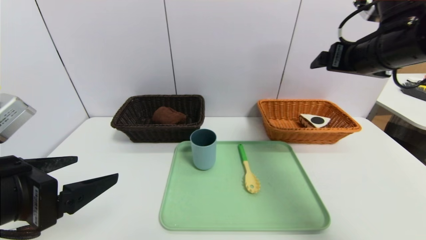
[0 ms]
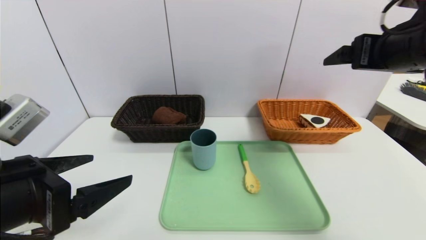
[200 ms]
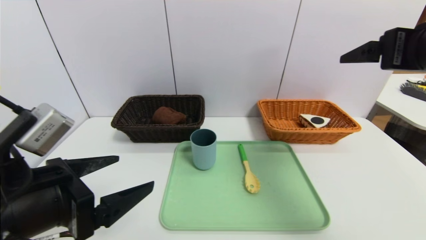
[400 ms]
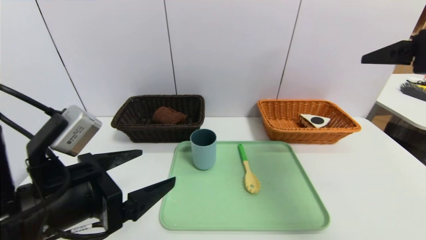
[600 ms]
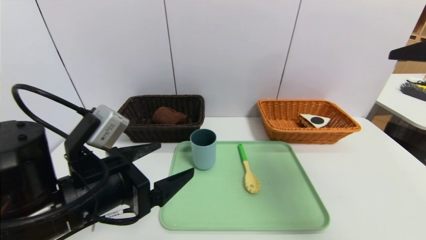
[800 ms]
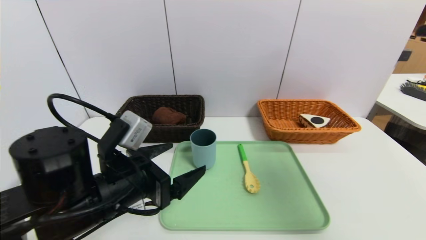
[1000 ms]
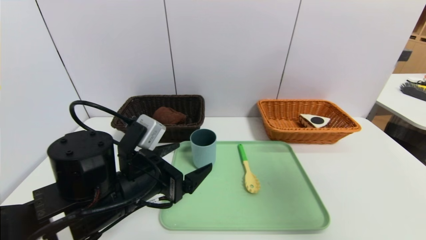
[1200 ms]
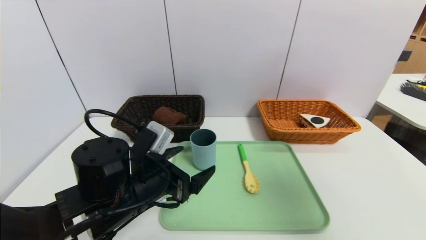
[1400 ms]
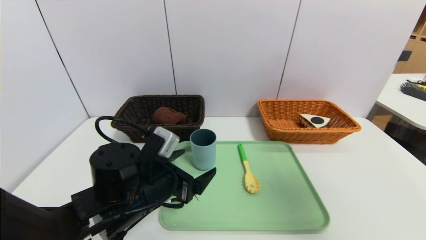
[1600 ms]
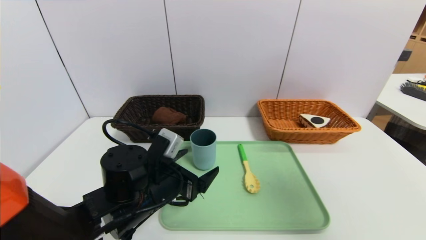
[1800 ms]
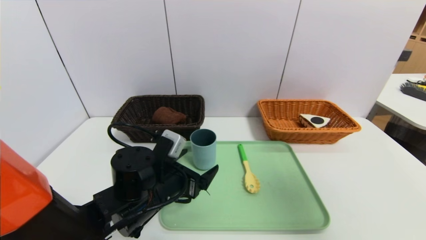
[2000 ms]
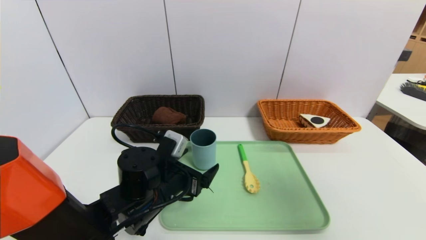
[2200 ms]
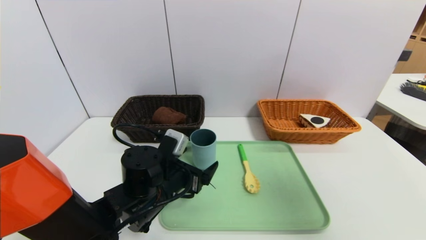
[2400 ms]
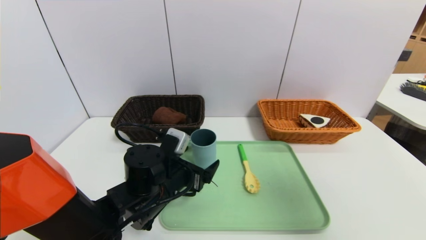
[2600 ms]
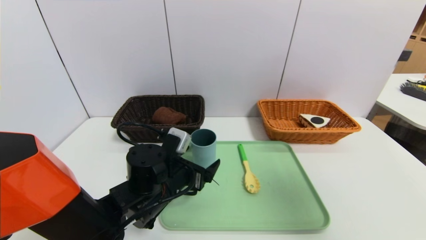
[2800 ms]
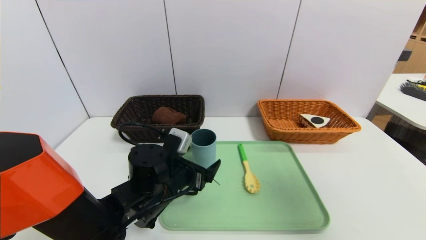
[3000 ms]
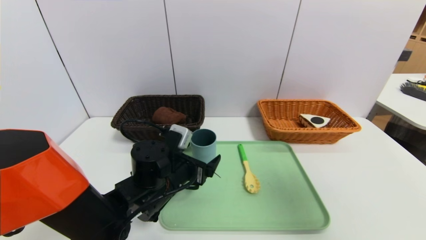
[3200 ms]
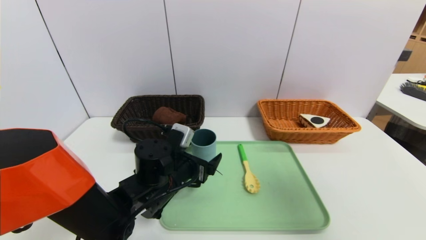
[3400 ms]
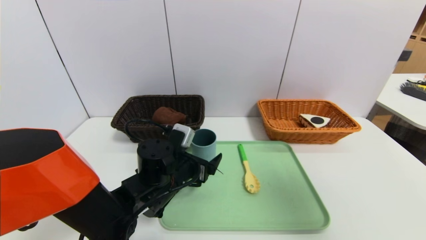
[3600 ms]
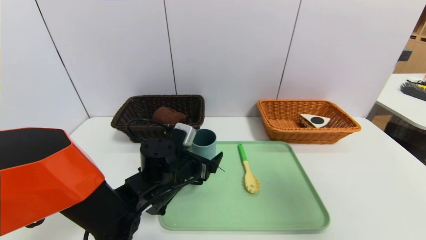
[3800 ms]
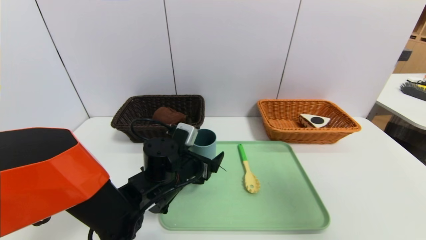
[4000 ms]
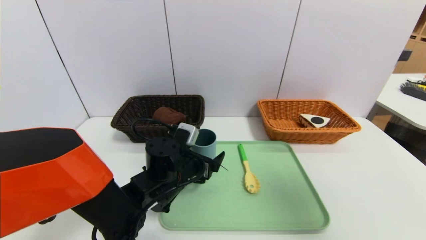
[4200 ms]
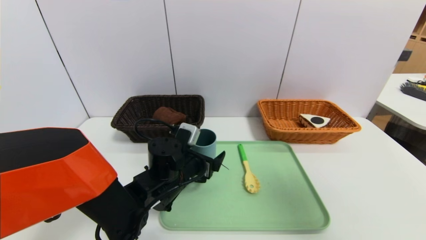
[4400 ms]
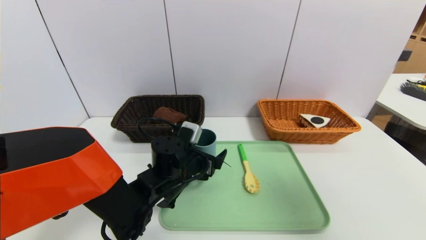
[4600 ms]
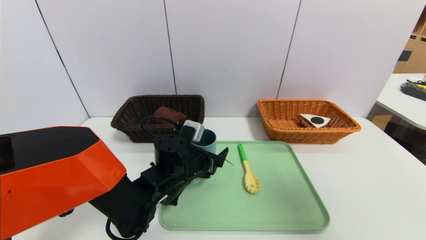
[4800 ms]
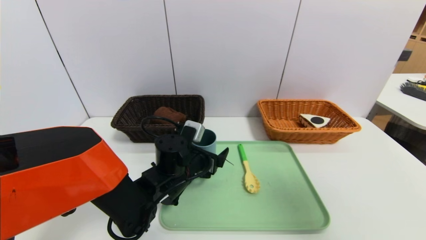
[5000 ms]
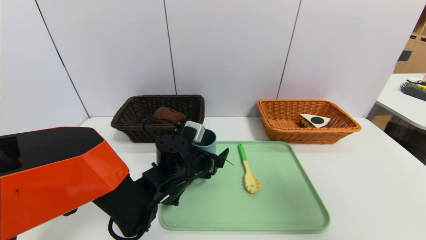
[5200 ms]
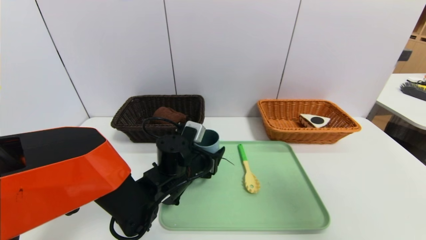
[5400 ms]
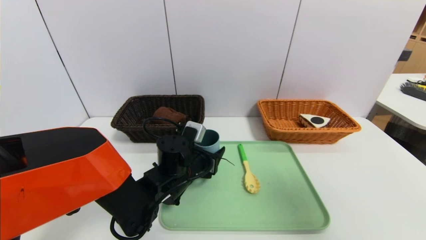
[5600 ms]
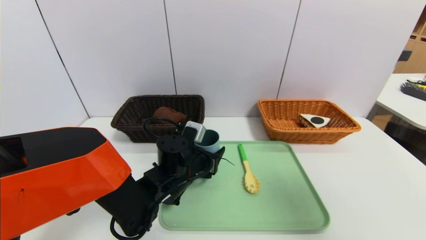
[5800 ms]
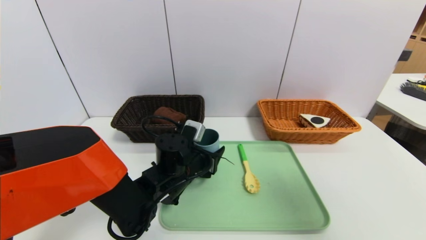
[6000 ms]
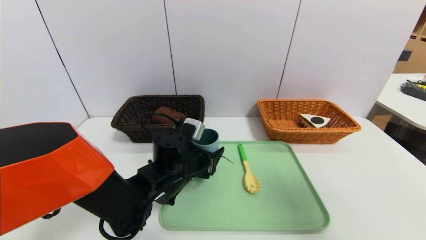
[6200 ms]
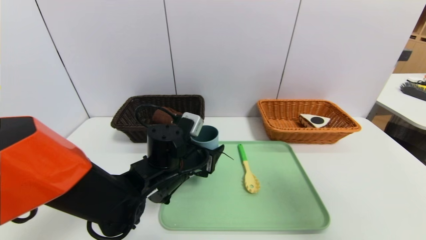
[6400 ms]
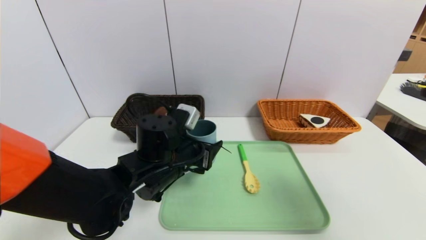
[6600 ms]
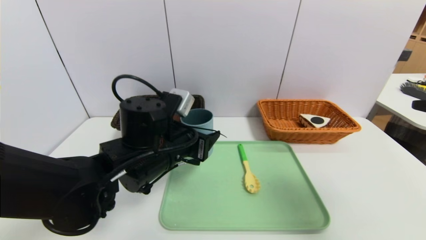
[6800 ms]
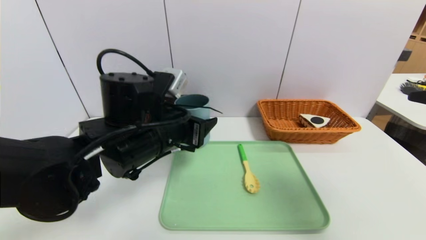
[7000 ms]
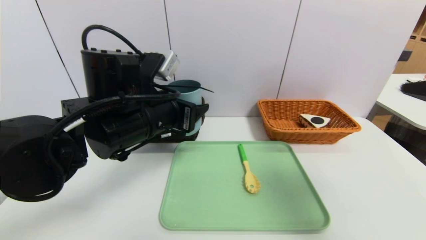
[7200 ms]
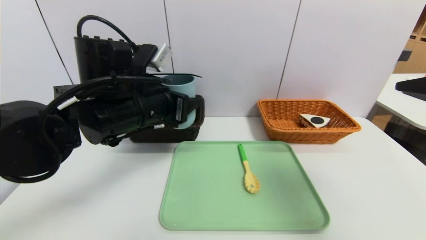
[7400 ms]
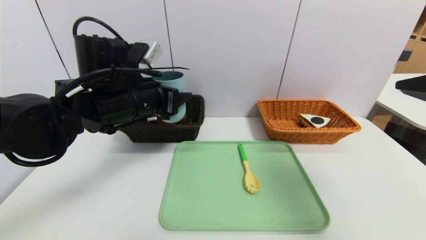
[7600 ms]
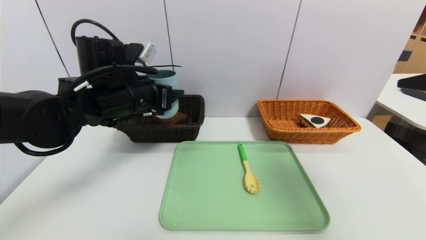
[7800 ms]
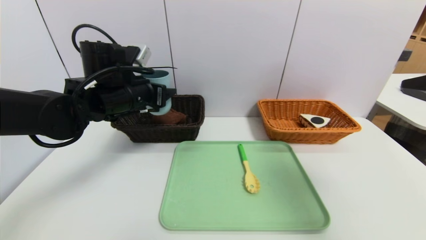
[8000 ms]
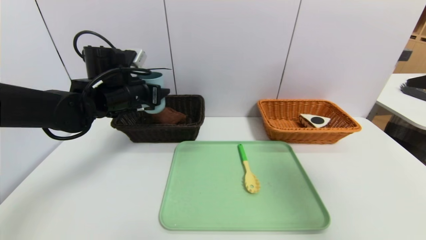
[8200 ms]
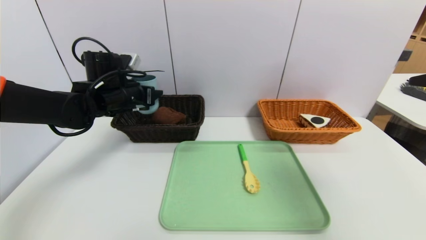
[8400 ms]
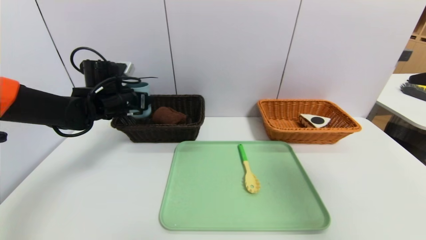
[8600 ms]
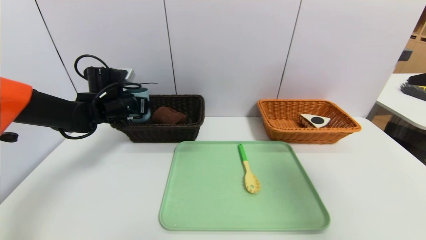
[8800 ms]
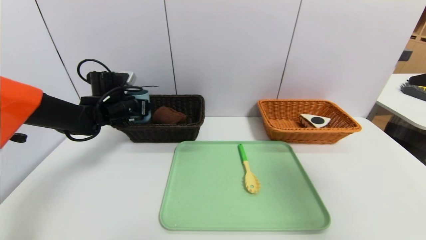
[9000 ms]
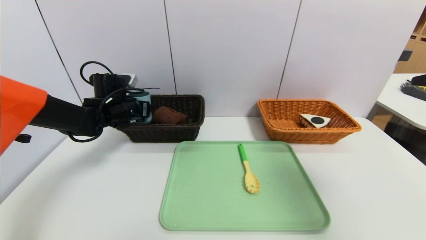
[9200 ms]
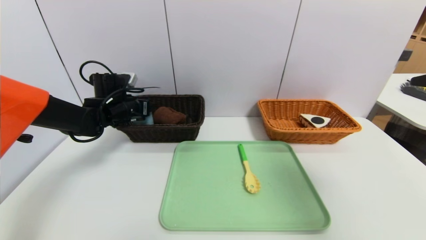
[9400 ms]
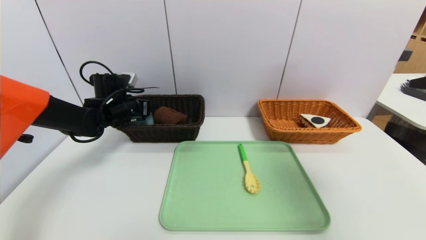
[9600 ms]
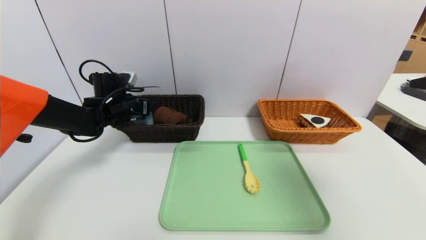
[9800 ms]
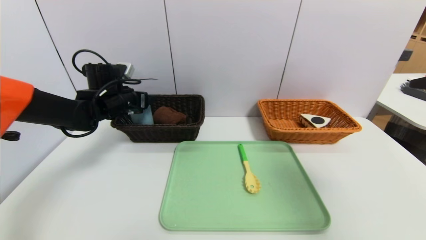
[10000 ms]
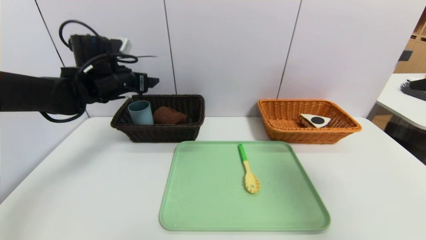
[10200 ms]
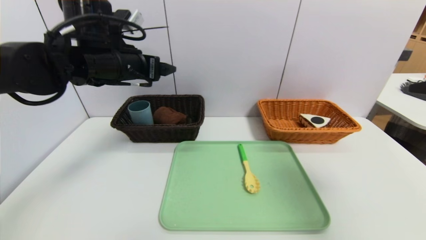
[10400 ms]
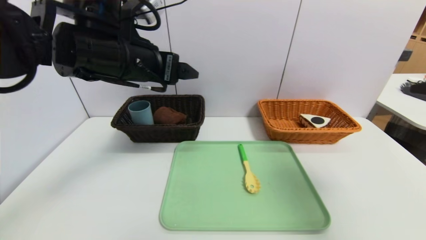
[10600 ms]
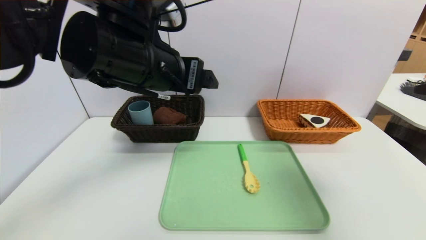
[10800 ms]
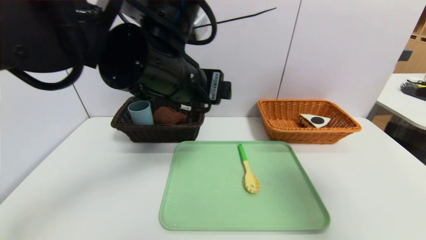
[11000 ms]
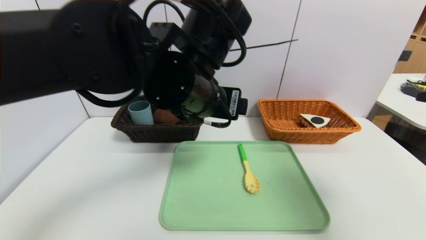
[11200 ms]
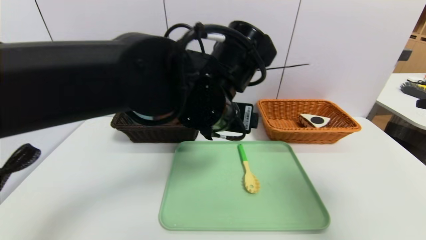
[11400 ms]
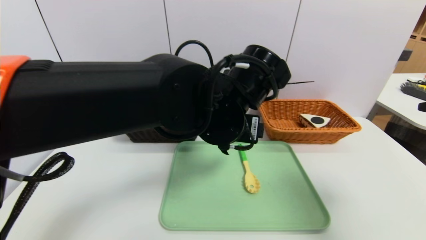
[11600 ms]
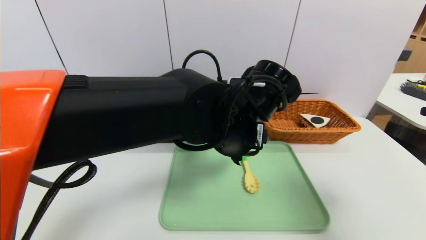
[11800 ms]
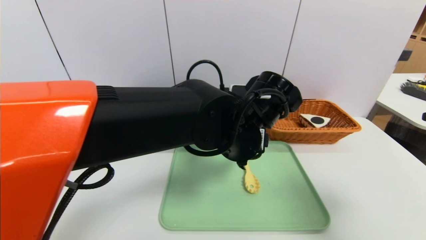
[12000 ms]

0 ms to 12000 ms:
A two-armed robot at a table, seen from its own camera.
Task of the whole recording: place the food in the right basket with the right gripper, and place the non food items in the left basket with the left gripper.
Step, 0 ms to 9800 ms: Grasp the blue cup and put it in the left basket.
0 ms to 1600 ms: The left gripper travels downward, to the right and forward by approximately 20 cm, while the right gripper goes about 20 cm backward.
1600 ms to 3000 ms: There are only small adjustments of the grippers.
3000 ms to 6000 ms: There are only small adjustments of the grippers.
6000 ms to 7600 ms: The right gripper moves forward, approximately 5 cm, while the left gripper travels upward and to the left by about 20 cm.
7600 ms to 9000 ms: The left gripper travels forward, to the left and downward by some 20 cm.
9000 ms to 10400 ms: The left gripper heads upward, backward and to the right, covering roughly 20 cm.
10400 ms to 12000 ms: The left gripper is displaced to the right and downward by about 25 cm.

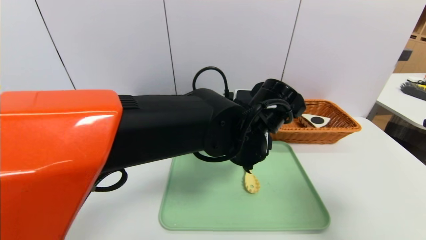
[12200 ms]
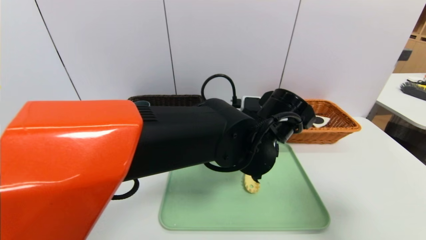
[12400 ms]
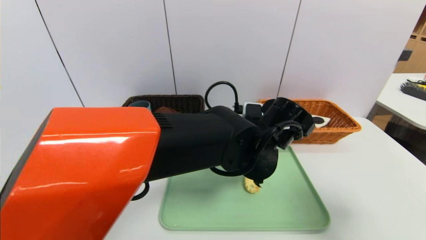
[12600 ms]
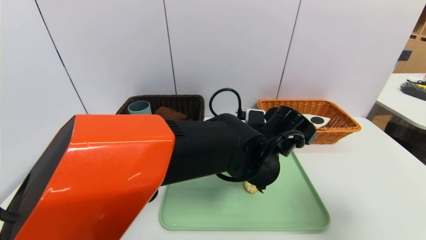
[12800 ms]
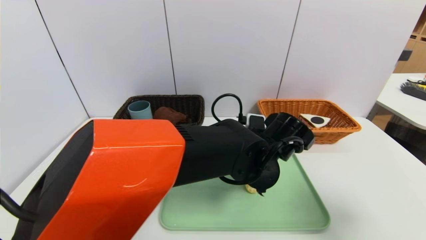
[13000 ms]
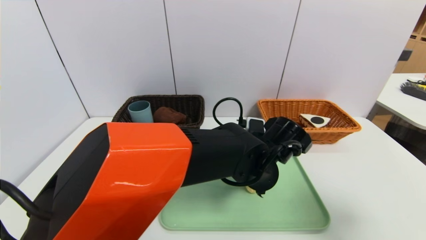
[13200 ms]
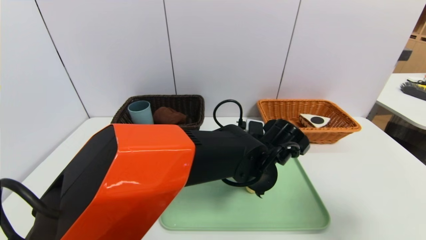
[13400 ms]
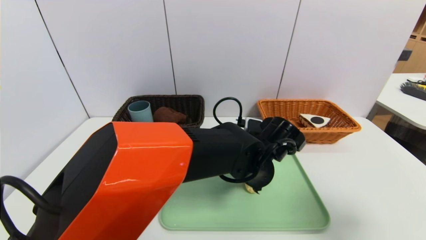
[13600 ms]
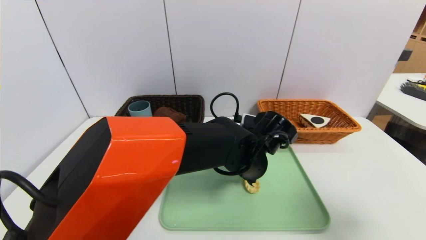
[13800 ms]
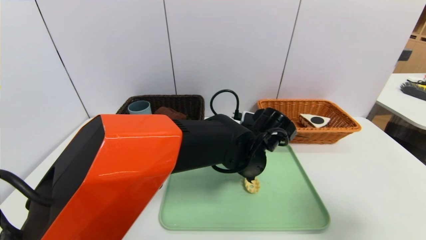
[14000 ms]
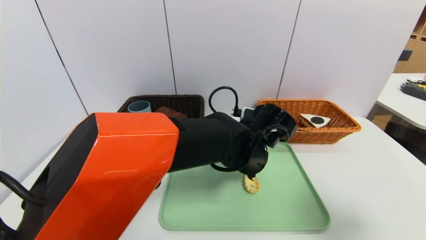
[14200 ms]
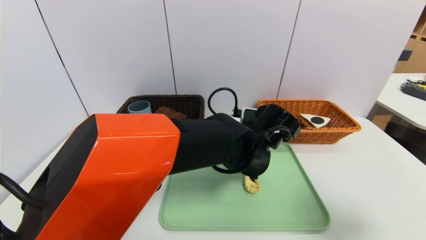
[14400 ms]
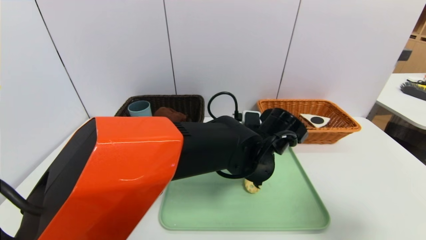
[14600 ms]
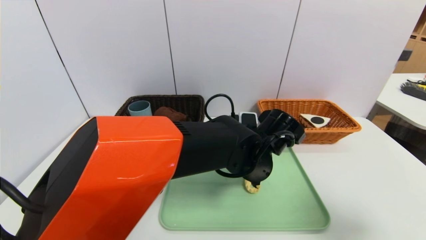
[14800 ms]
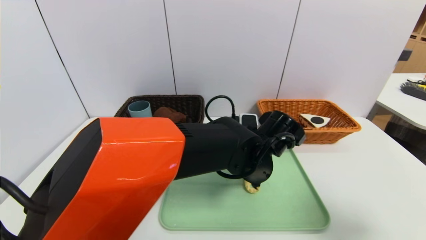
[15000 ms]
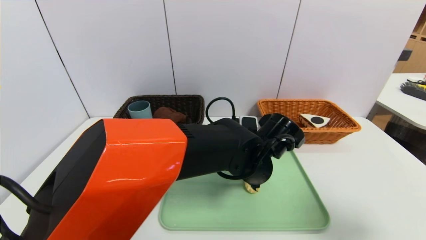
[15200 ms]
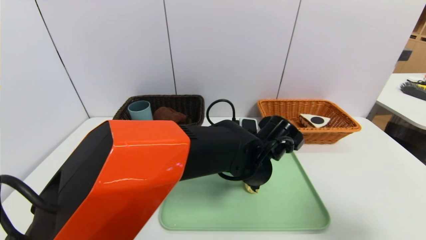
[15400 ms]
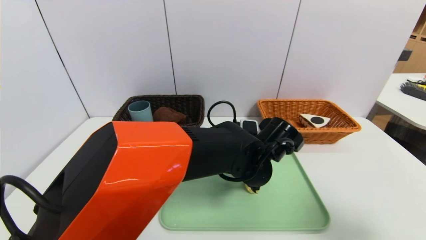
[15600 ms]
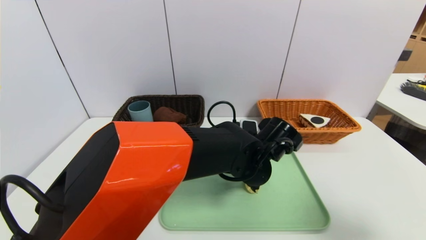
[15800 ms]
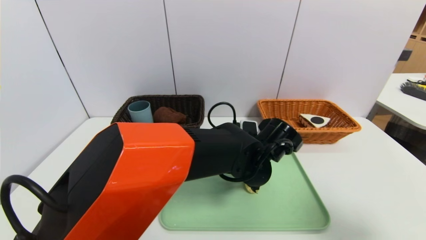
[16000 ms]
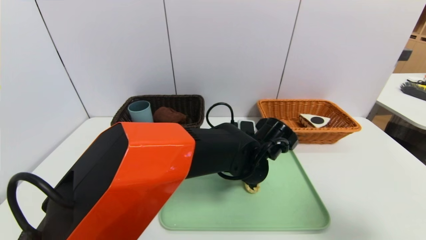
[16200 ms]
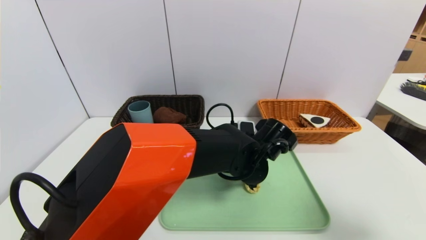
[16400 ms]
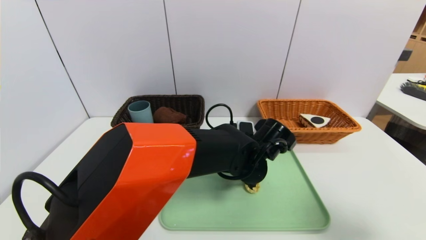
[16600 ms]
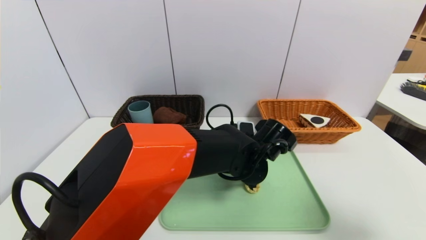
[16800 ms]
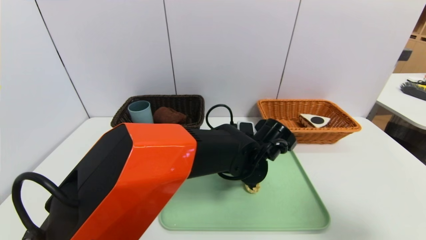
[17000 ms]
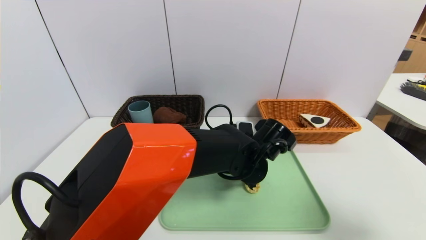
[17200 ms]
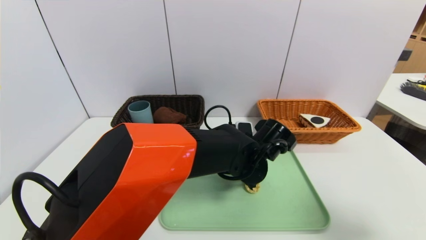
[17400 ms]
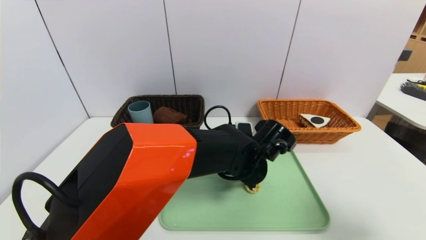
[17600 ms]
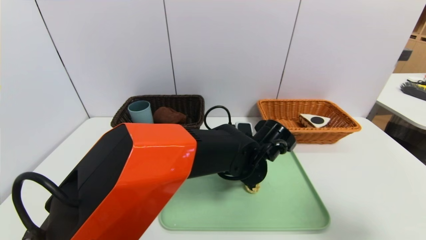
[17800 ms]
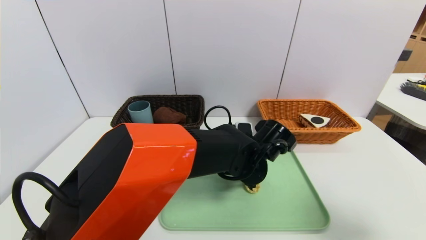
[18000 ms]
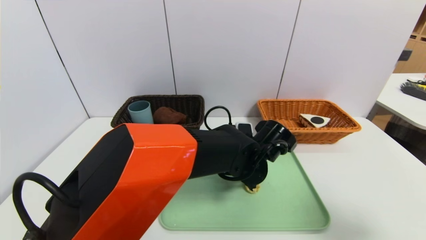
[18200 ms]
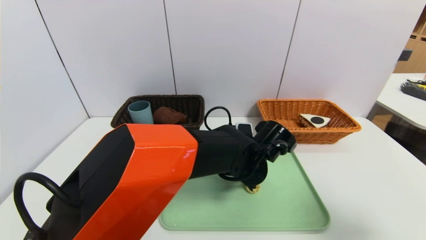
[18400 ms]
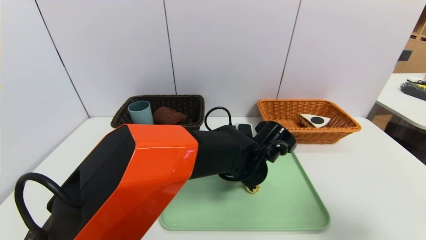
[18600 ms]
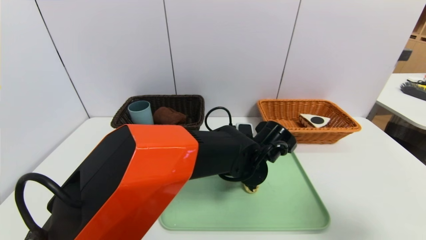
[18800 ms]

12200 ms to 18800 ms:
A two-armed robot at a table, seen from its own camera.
Task of the whole recording: place the food in the right basket with the right gripper, and place the non food items in the left basket with the left gripper.
12200 ms to 13800 ms: The left gripper heads downward, covering about 5 cm.
13800 ms to 17200 ms: The grippers make only small movements.
17200 ms to 18800 ms: The left gripper closes up.
